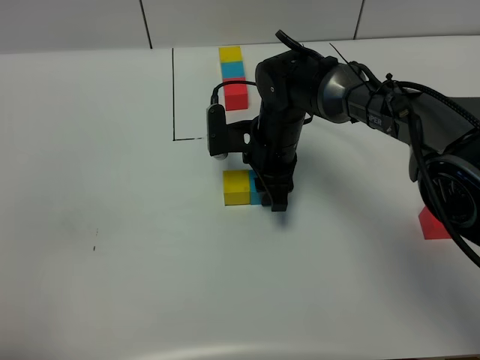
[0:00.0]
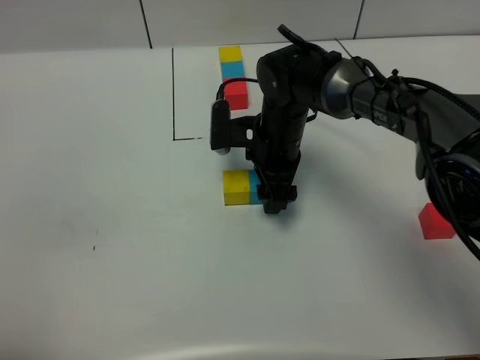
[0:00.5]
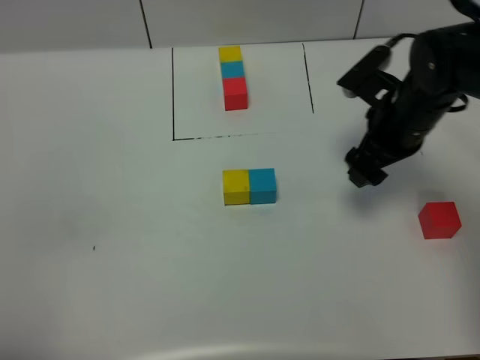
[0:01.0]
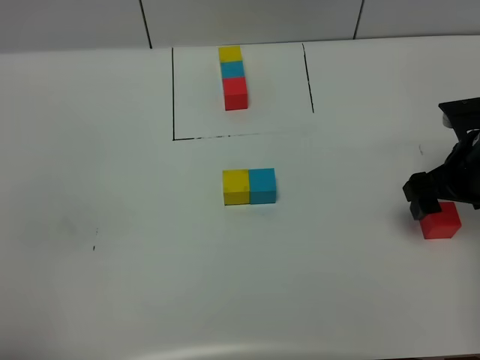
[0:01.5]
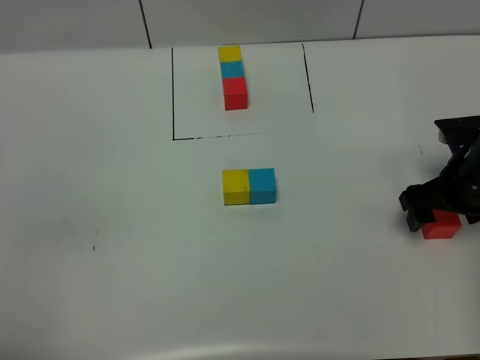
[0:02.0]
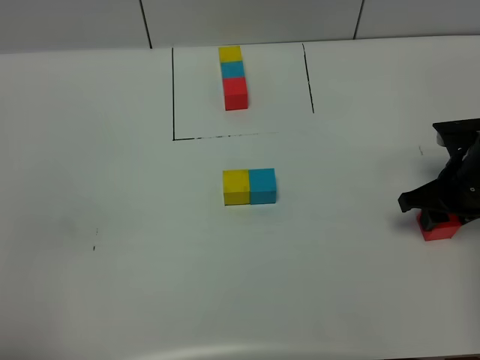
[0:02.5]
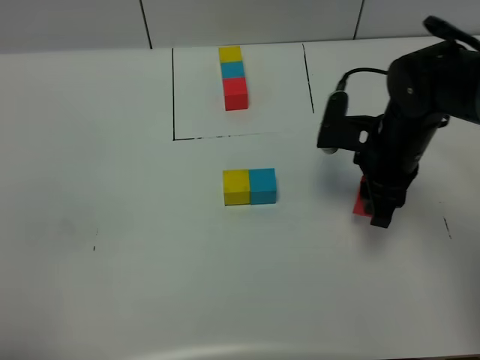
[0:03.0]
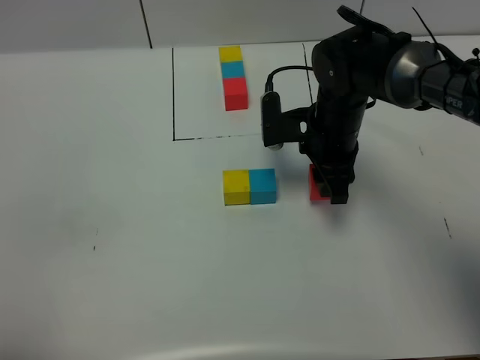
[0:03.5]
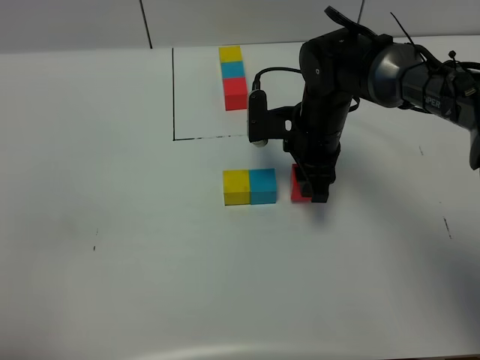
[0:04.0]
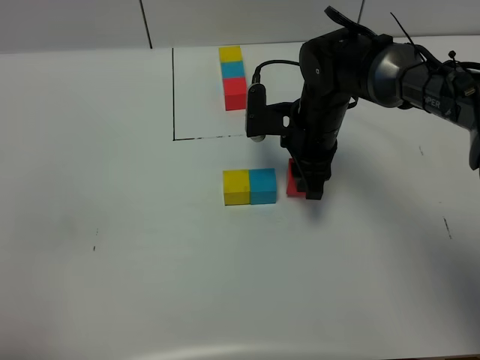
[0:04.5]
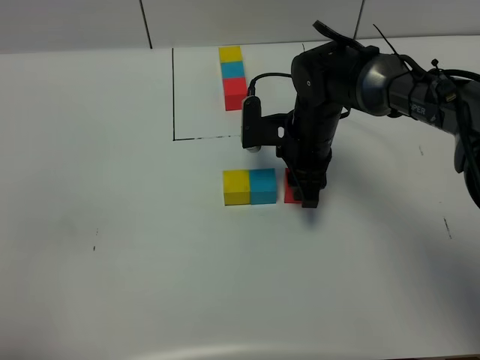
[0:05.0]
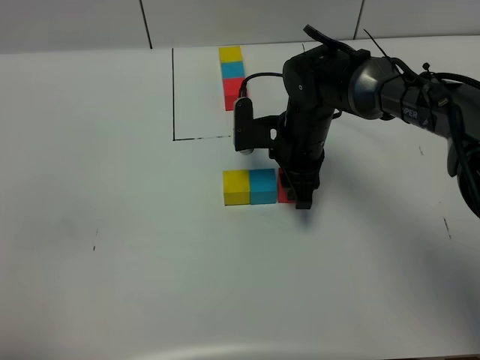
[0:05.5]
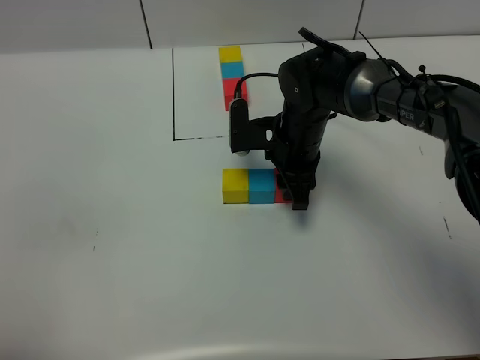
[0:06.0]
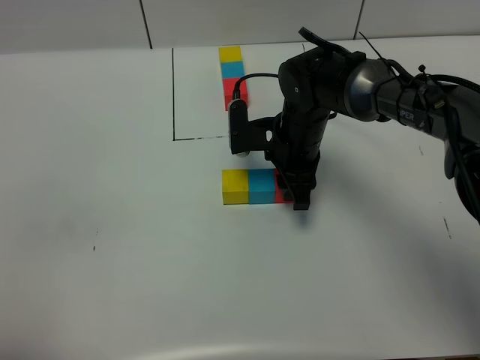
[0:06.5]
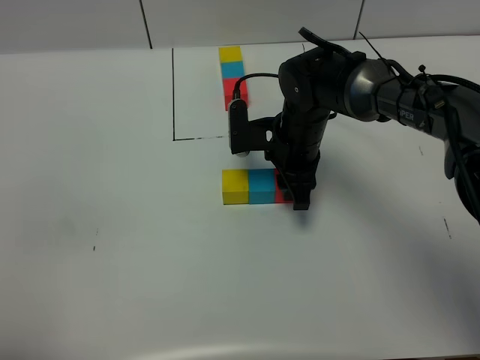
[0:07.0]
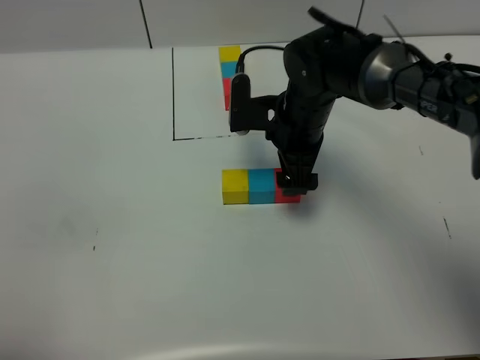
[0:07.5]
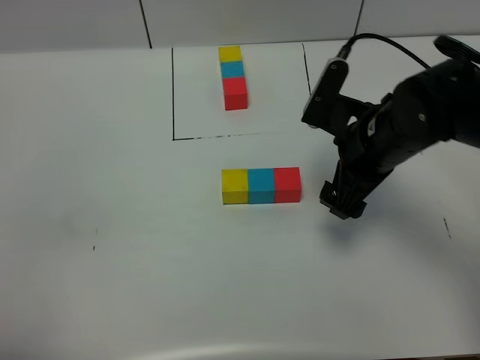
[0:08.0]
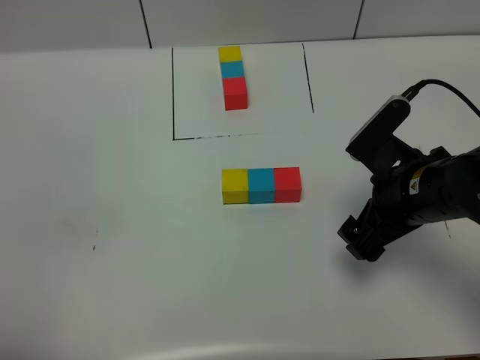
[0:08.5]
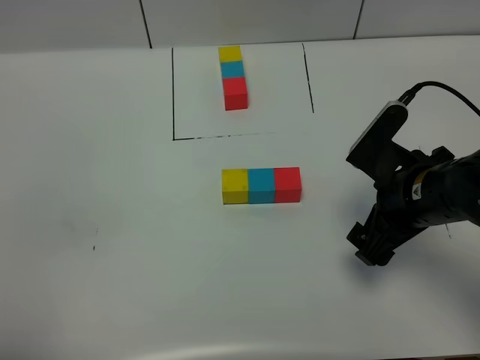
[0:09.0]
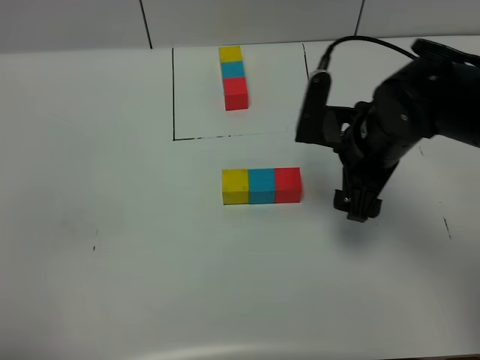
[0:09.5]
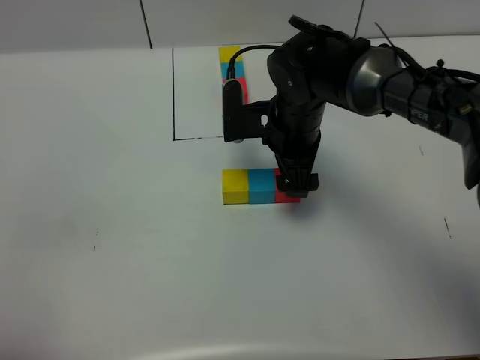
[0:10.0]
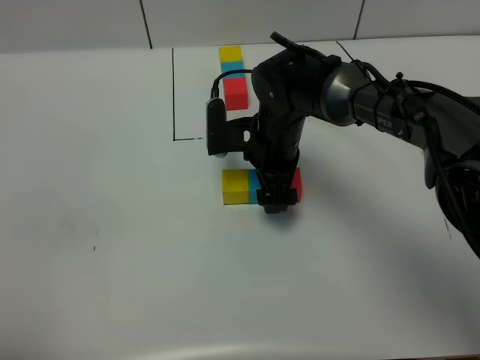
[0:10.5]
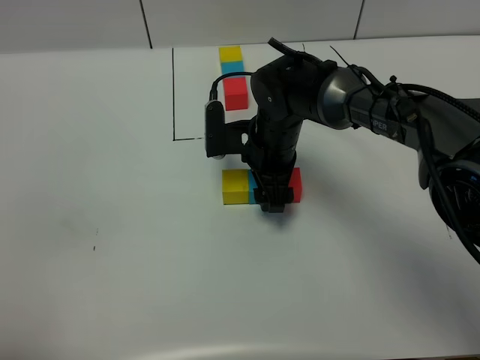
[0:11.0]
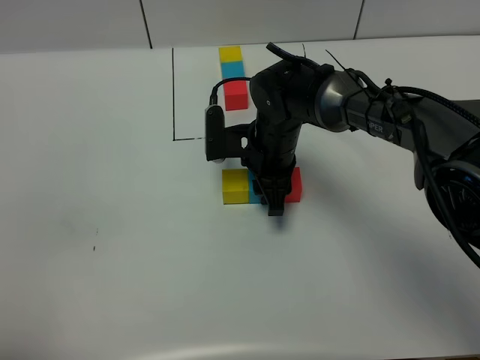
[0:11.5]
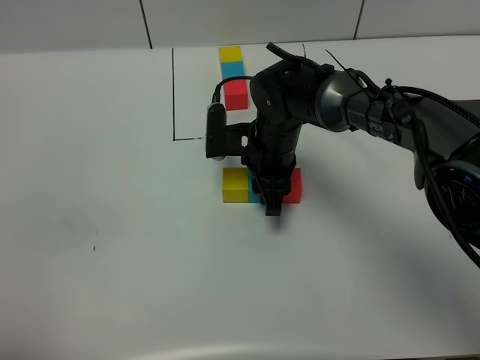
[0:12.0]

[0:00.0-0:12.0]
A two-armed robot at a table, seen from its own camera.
Task of the whole recording: According to the building block template in front, assemble the scattered blocks together.
Step, 0:01.0 to 0:07.5: Put the red build block on the right of the blue build block.
0:00.0 to 0:02.0: The right gripper moves to the right, approximately 25 cm, and opens.
0:02.0 to 0:04.0: The right gripper travels to the left by about 20 cm, and closes.
0:04.0 to 0:06.0: The grippers stay close to where they were, moving slightly.
0:06.0 to 0:08.0: The right gripper heads backward, to the right and upward, covering about 15 cm, and opens up.
0:08.0 to 0:10.0: The right gripper heads to the left and forward, covering roughly 10 cm.
0:10.0 to 0:12.0: The right gripper shifts by roughly 5 cm, and closes up.

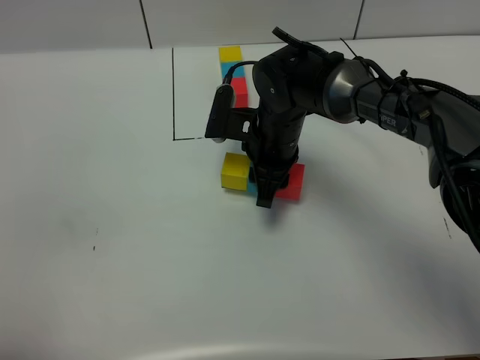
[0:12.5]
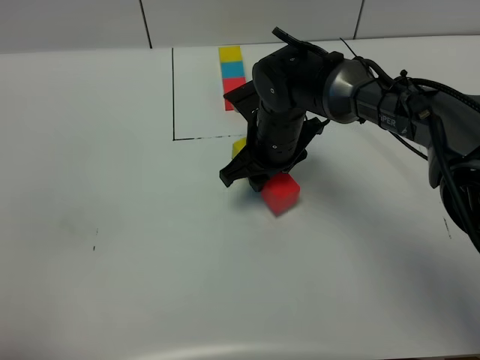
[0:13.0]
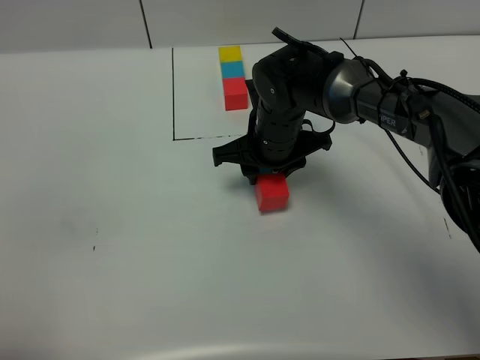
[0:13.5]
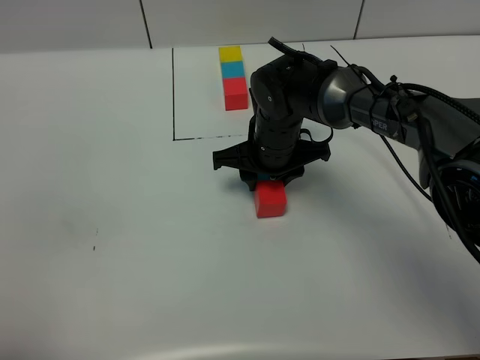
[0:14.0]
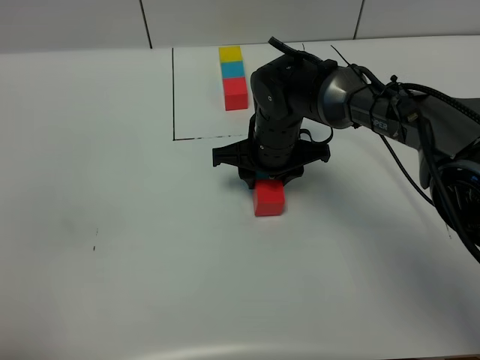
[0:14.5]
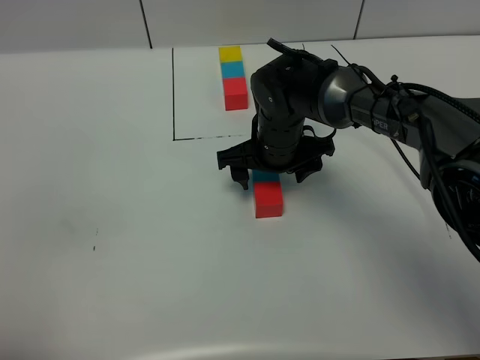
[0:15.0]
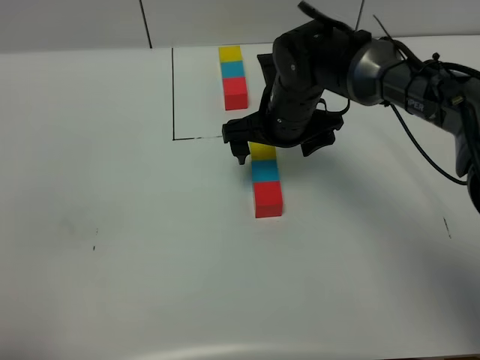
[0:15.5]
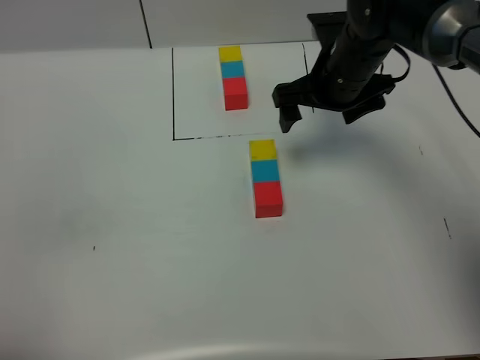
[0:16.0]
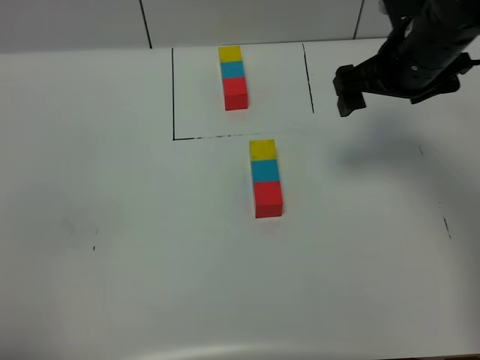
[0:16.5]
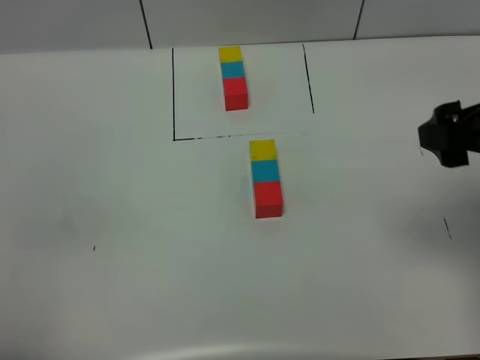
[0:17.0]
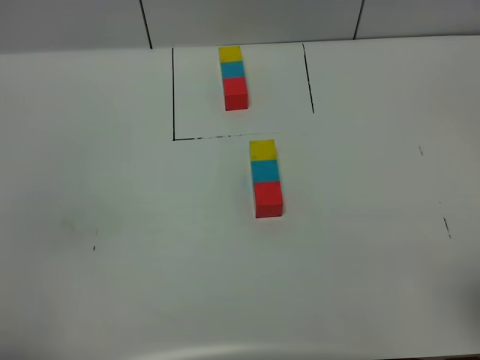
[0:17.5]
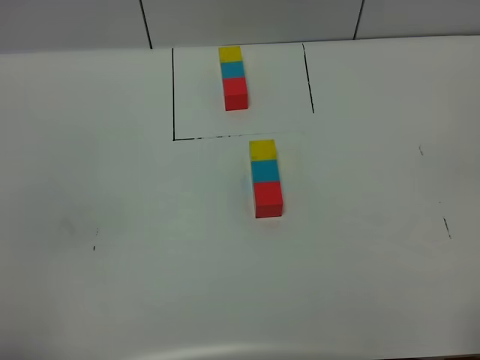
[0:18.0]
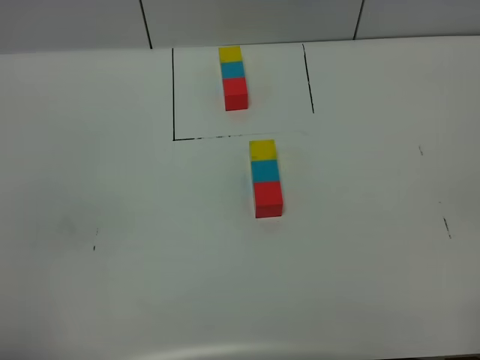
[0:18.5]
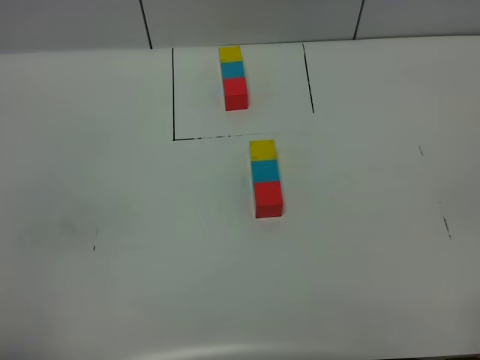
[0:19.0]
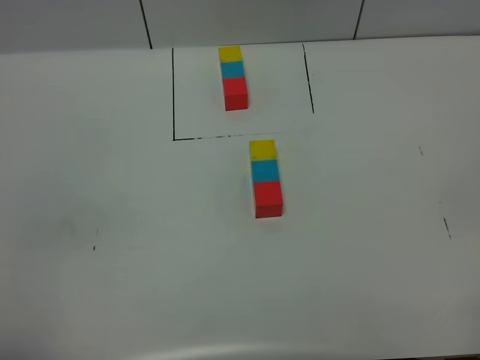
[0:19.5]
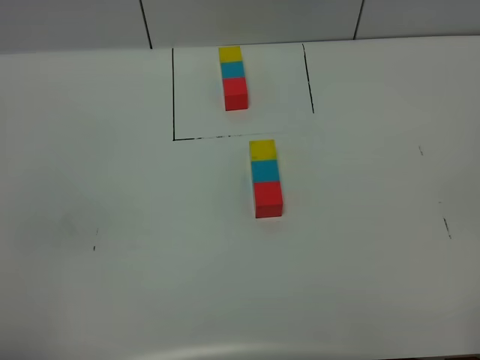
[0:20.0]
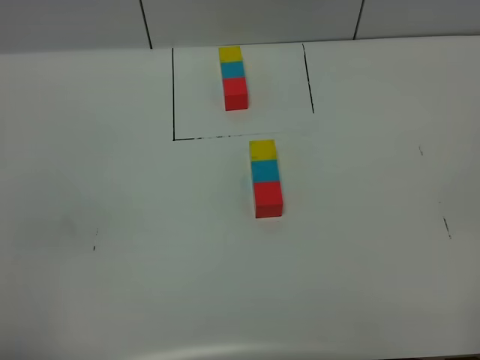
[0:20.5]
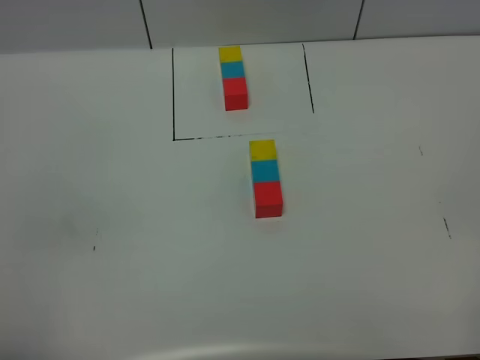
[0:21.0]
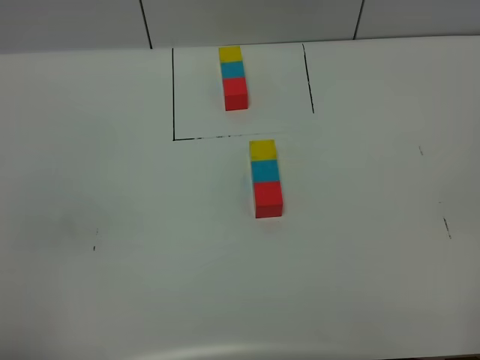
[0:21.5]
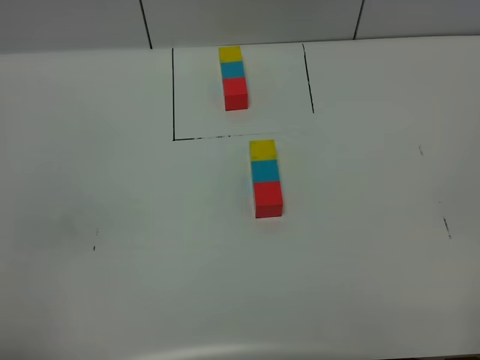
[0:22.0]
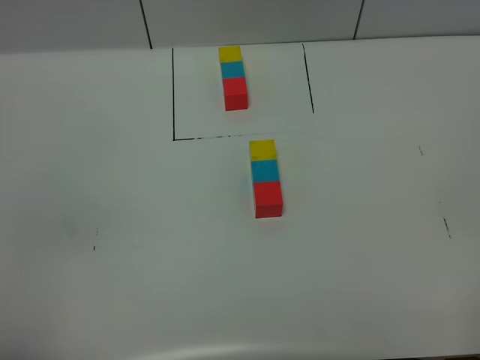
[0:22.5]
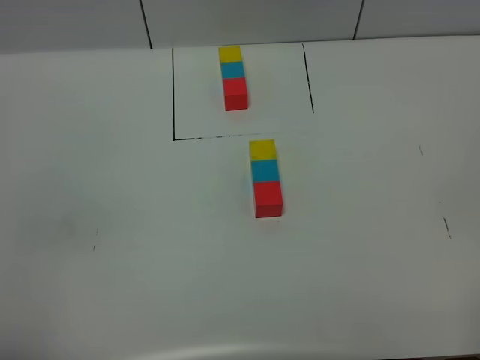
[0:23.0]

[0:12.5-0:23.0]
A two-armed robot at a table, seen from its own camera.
Task of the whole recording: According to the building block template in front, assemble the scattered blocks together.
Step, 0:12.5 to 0:16.0: move the build block to the center of the table.
0:14.5 to 0:16.5: The right gripper goes some 20 cm to the right and upward, and opens its fingers.
0:16.5 to 0:19.0: The right gripper is displaced backward by approximately 35 cm.
0:21.0 to 0:23.0: Both grippers stay about where they are.
